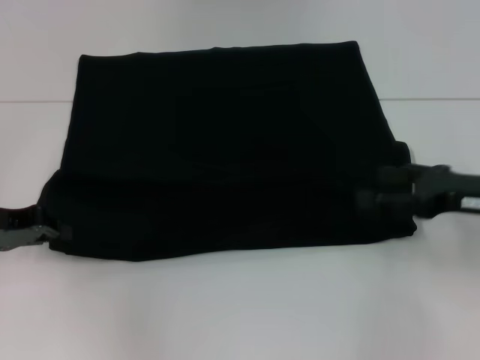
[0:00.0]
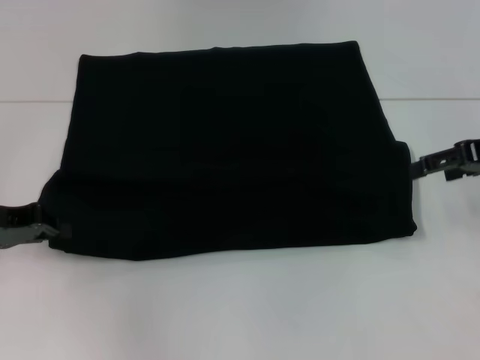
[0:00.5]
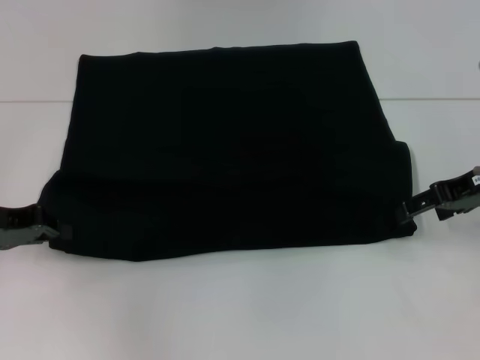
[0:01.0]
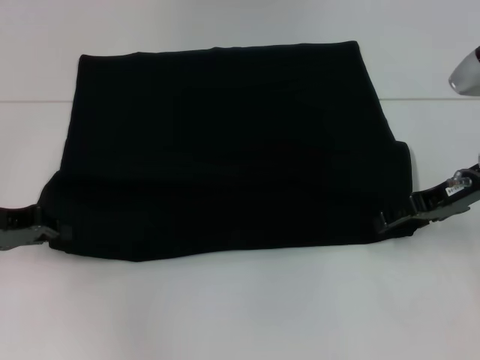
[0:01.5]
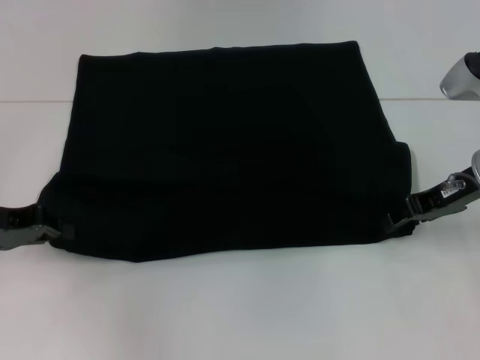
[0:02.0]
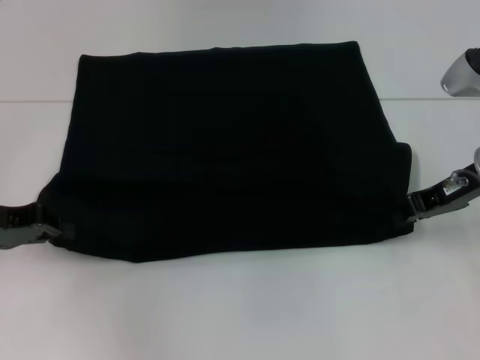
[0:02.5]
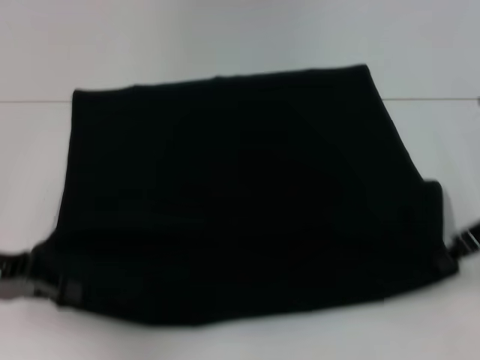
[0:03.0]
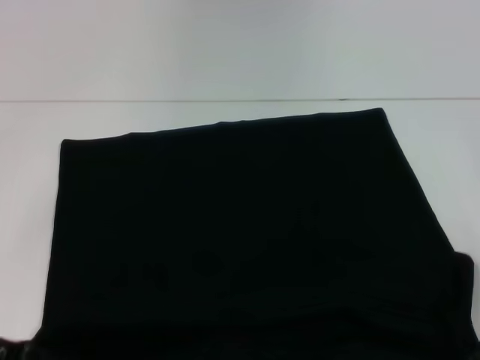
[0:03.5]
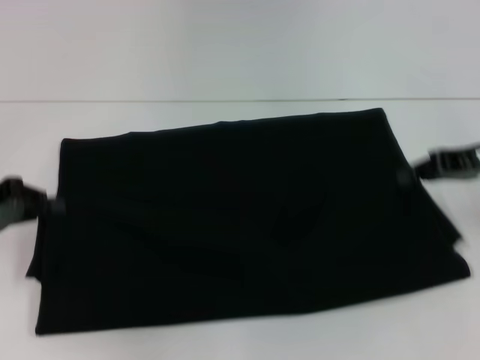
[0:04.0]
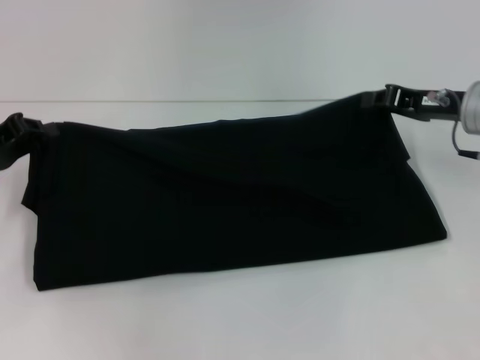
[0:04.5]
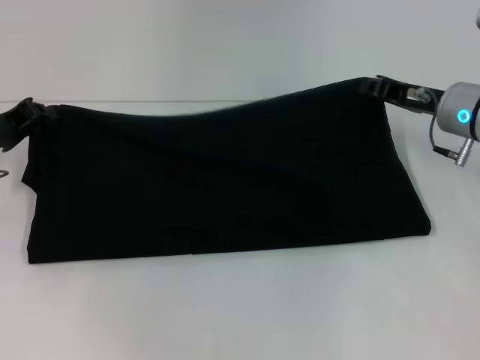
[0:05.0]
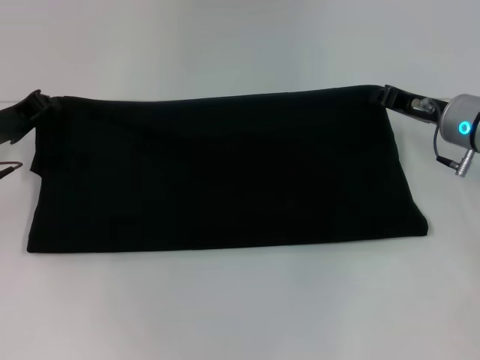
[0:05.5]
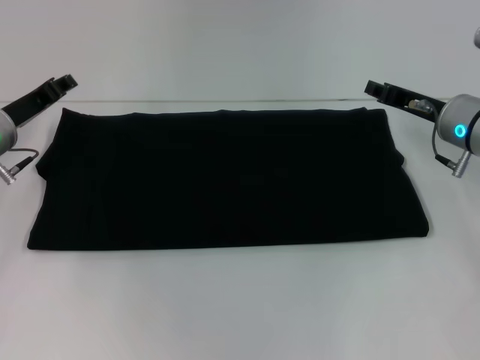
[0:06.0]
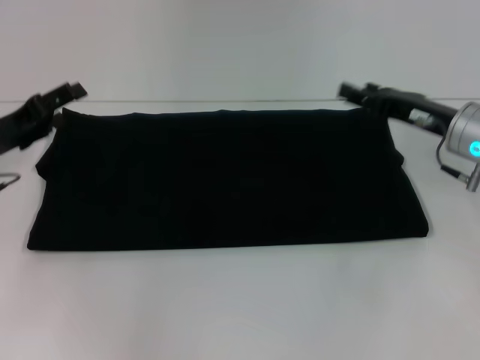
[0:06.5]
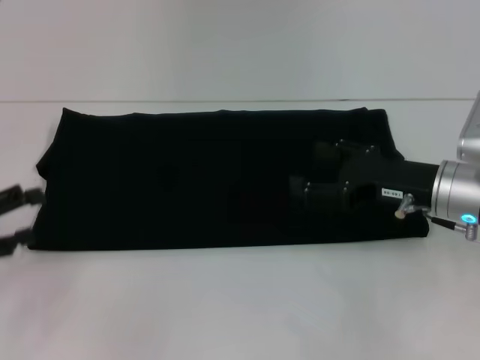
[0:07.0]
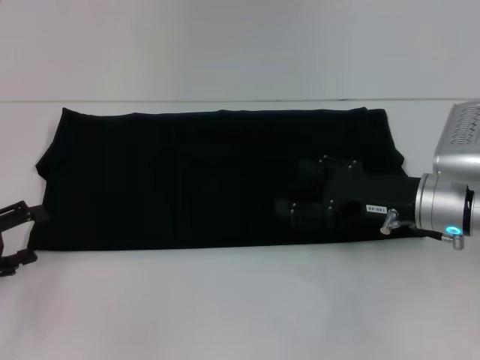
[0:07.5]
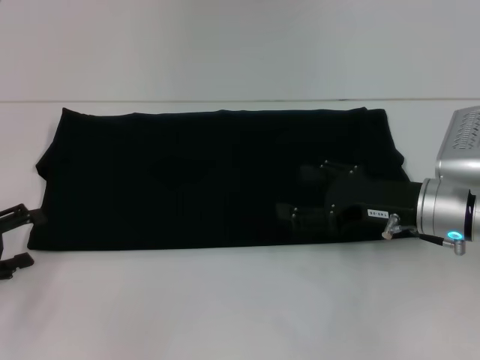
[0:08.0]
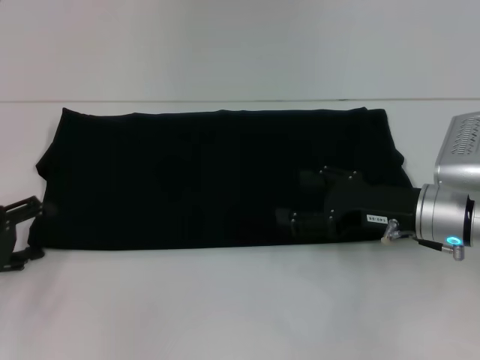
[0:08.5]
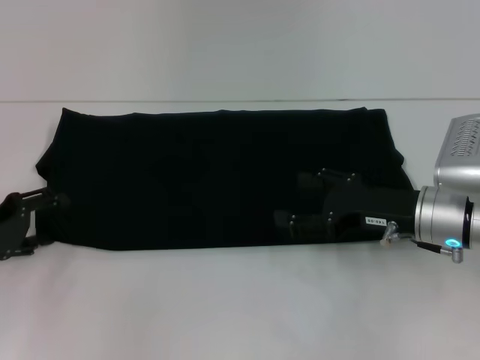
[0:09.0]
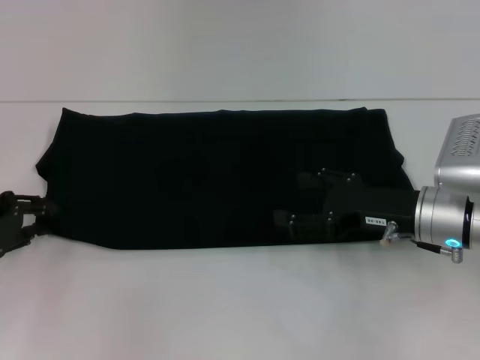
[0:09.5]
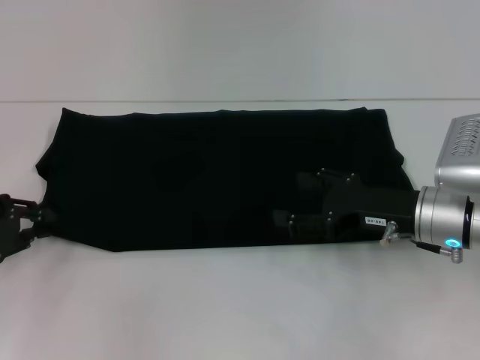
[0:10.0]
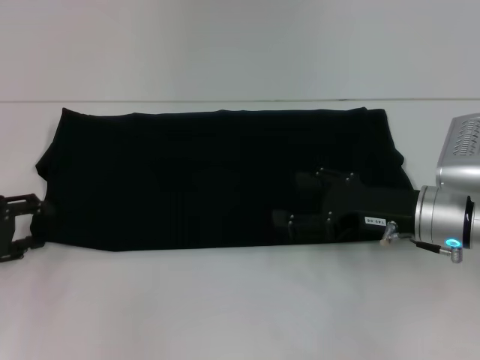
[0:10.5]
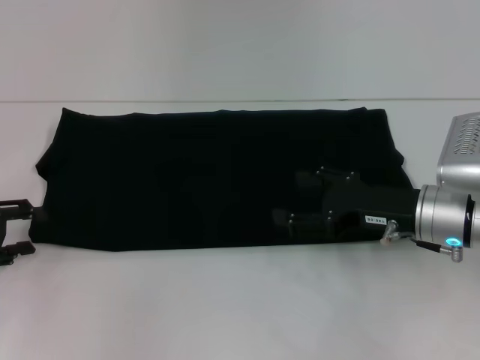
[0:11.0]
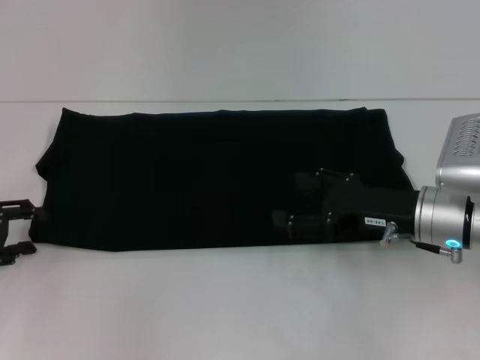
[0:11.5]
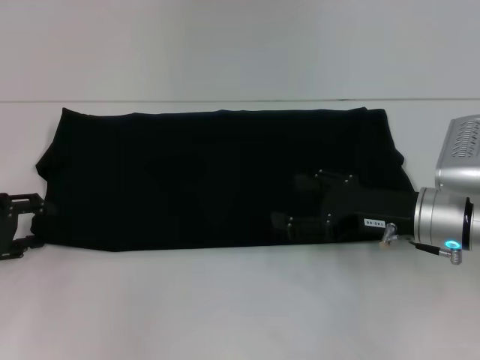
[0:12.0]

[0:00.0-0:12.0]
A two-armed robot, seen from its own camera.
Step, 0:00.0 to 0:03.0: Pull the clothes with your left hand.
Step, 0:00.0 to 0:03.0: Pull the clothes with your right hand.
Step, 0:03.5 to 0:05.5: Fold the clothes with your right hand.
0:00.0 to 0:02.0: The right gripper shifts roughly 5 cm forward, and closes its fingers.
0:02.0 to 0:04.0: The left gripper goes backward and returns, about 10 cm each way. The right gripper goes backward and returns, some 10 cm each way, and closes its fingers.
0:04.0 to 0:06.0: The right gripper travels downward and to the left by some 10 cm; the left gripper travels forward and to the right by approximately 10 cm.
0:06.0 to 0:08.0: The left gripper is displaced backward and to the left by some 15 cm, and opens up; the right gripper is displaced backward by about 10 cm, and opens.
0:08.0 to 0:10.0: The left gripper closes.
0:10.0 to 0:12.0: The left gripper opens.

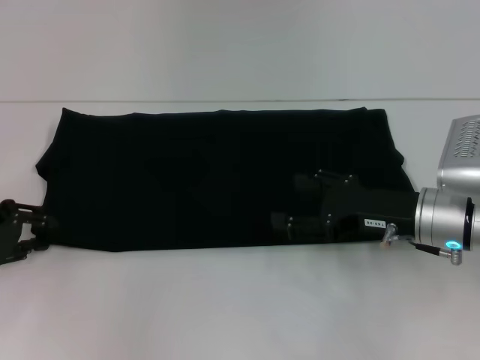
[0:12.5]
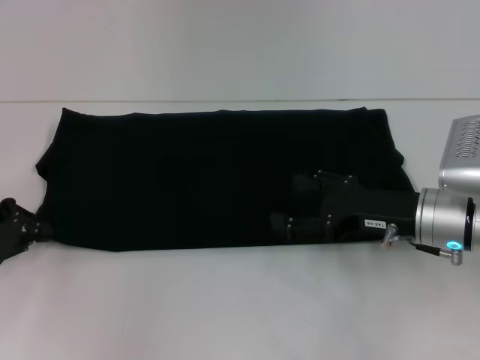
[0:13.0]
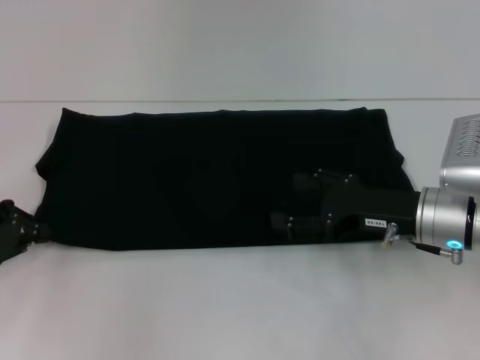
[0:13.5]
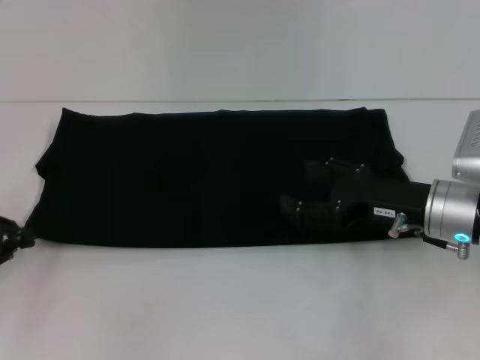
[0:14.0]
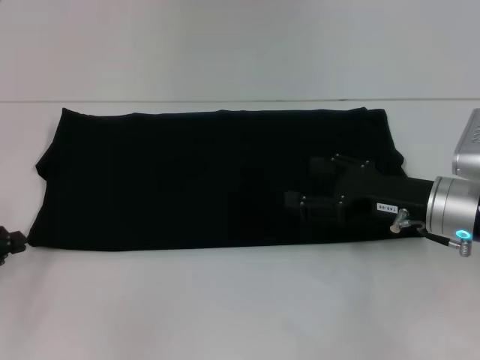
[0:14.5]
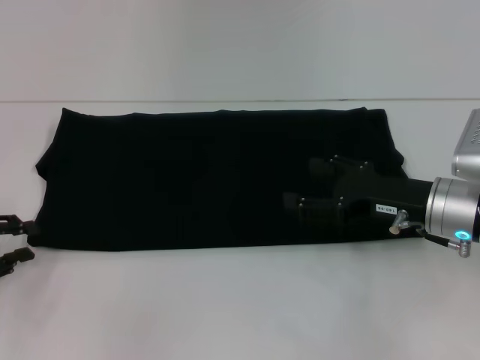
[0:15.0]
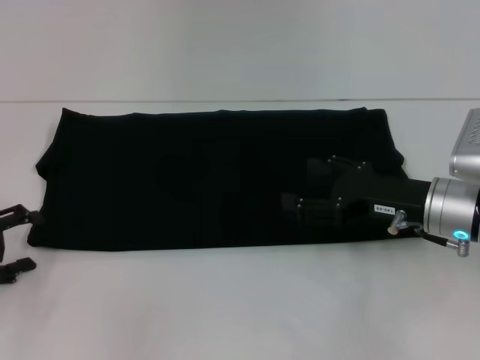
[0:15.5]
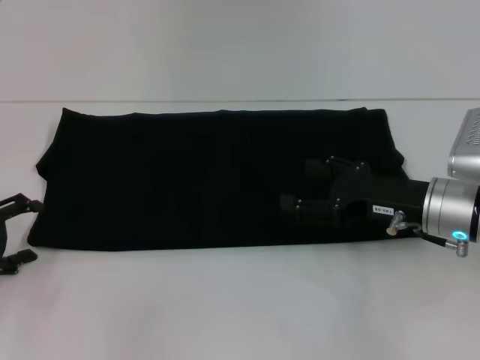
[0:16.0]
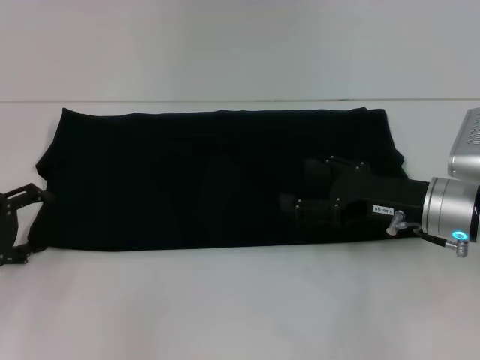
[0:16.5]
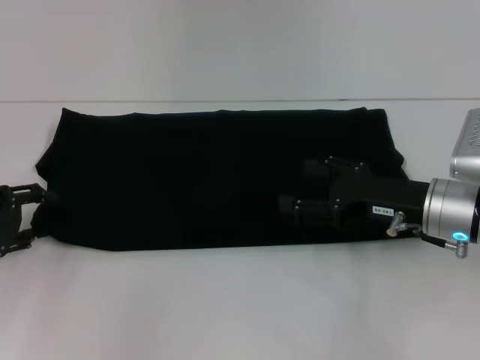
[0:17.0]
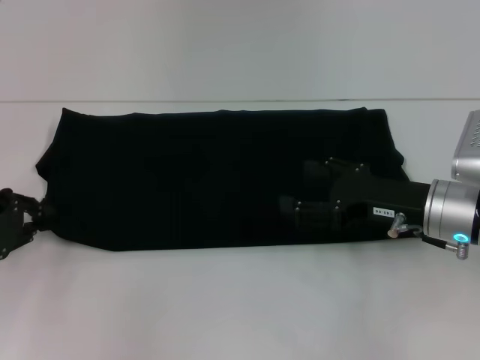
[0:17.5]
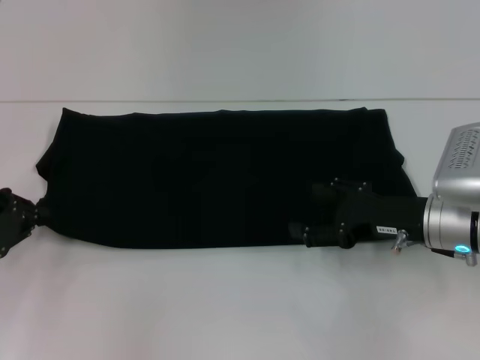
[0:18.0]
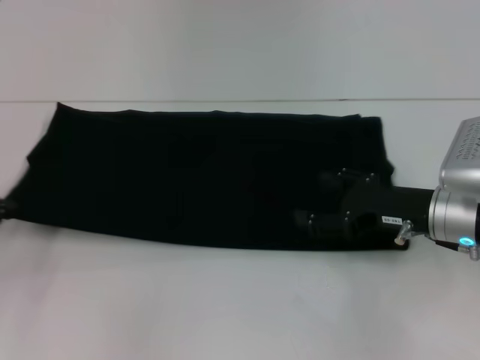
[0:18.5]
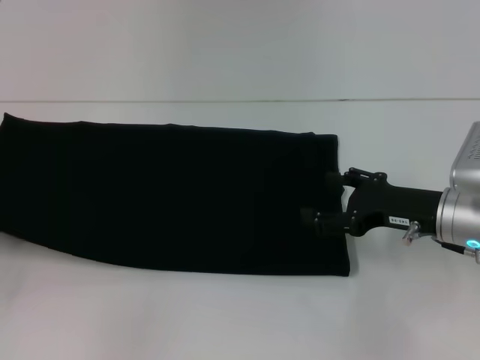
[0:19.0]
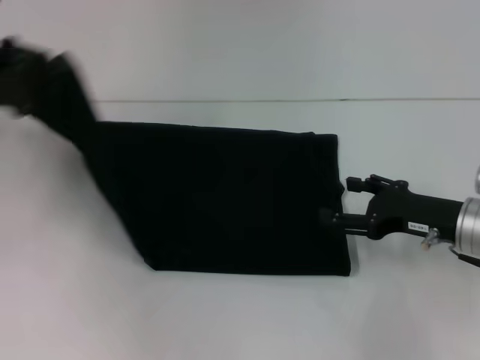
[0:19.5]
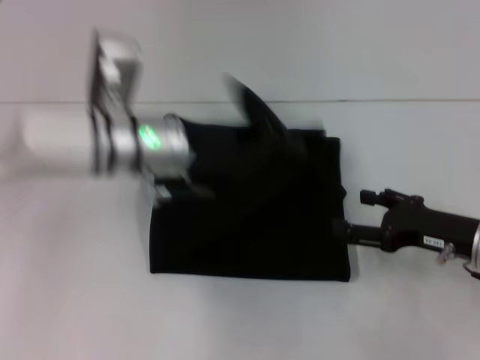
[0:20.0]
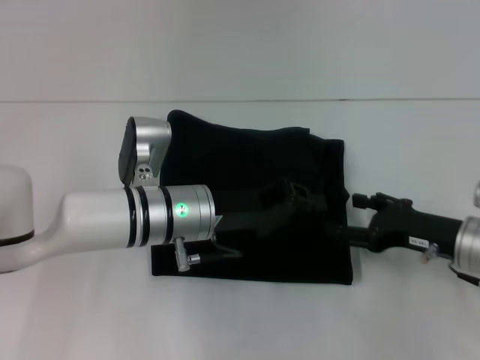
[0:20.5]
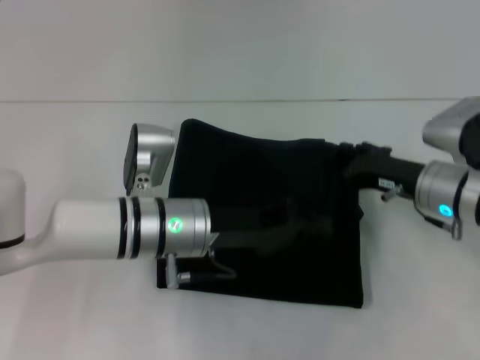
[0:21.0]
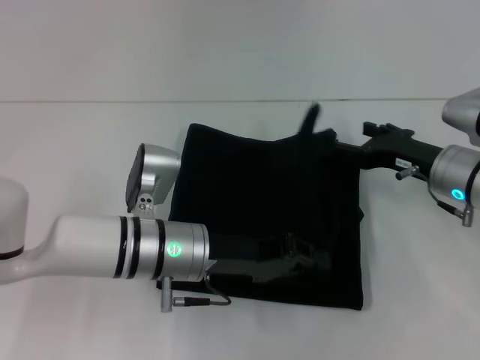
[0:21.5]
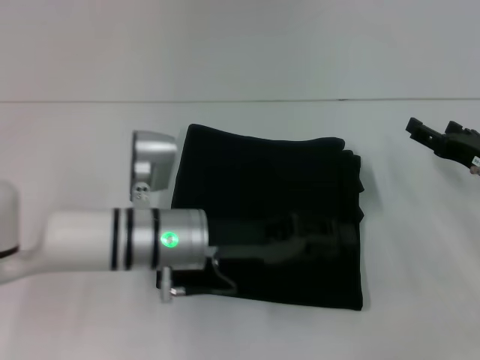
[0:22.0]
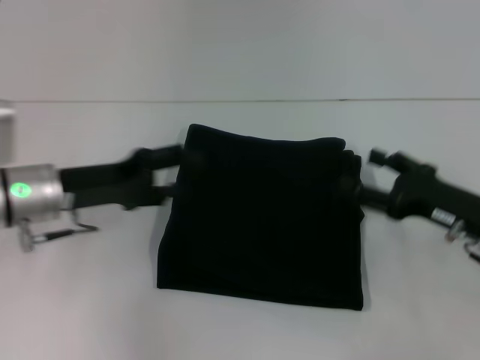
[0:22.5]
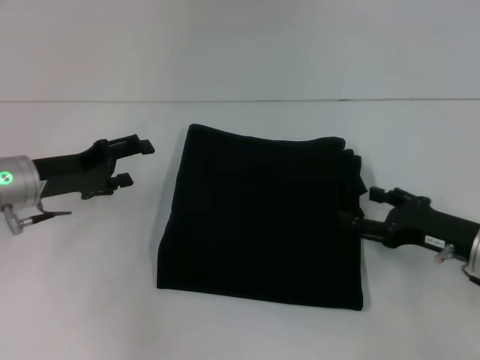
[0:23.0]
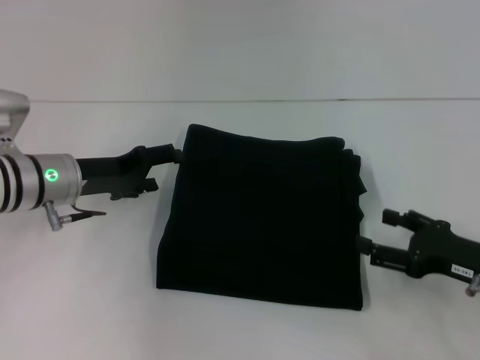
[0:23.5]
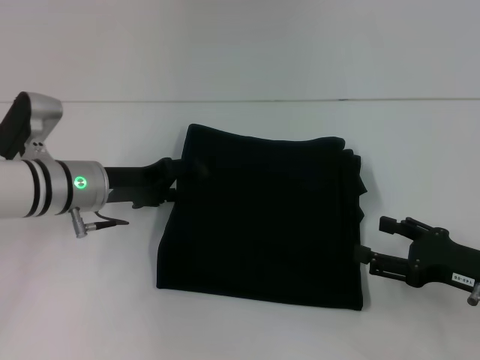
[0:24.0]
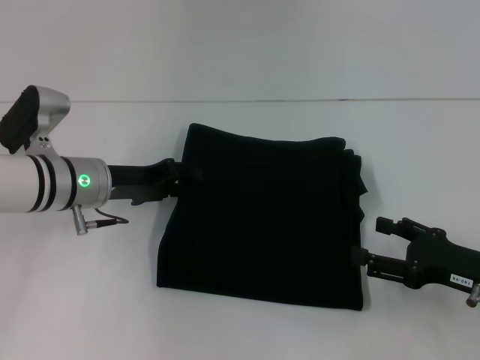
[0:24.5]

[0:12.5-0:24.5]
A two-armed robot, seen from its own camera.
Step, 0:12.5 to 0:21.5: Fold the clothes with your left hand.
0:12.5 to 0:14.5: The left gripper moves roughly 5 cm, and closes up.
0:14.5 to 0:16.5: The left gripper opens its fingers.
0:16.5 to 0:18.5: The left gripper closes its fingers.
0:18.5 to 0:20.5: The left gripper goes some 30 cm to the right.
0:20.5 to 0:22.5: The left gripper goes about 15 cm to the left, and opens its fingers.
0:22.5 to 0:24.5: The right gripper shifts by roughly 5 cm. Meanwhile the left gripper shifts by about 5 cm.

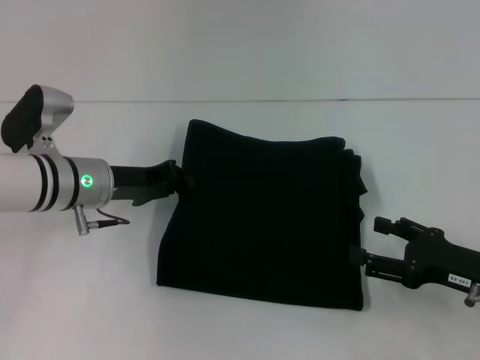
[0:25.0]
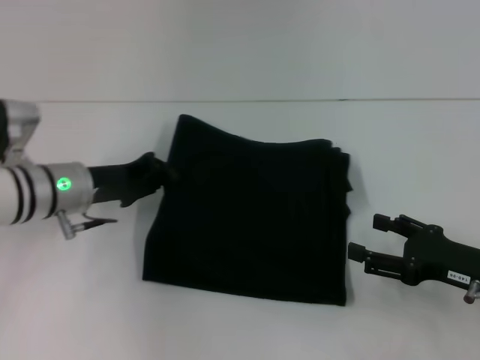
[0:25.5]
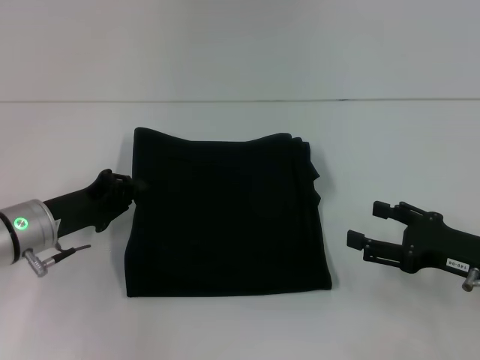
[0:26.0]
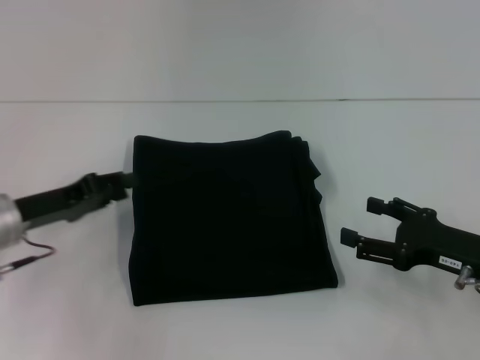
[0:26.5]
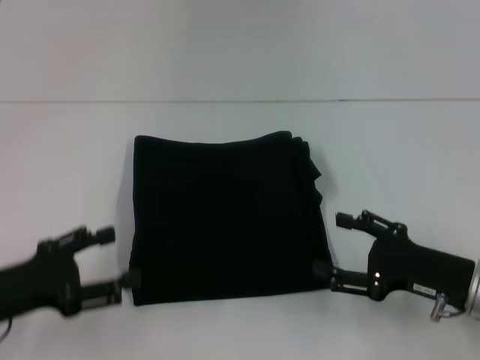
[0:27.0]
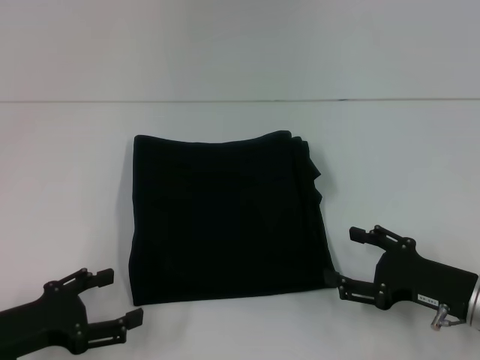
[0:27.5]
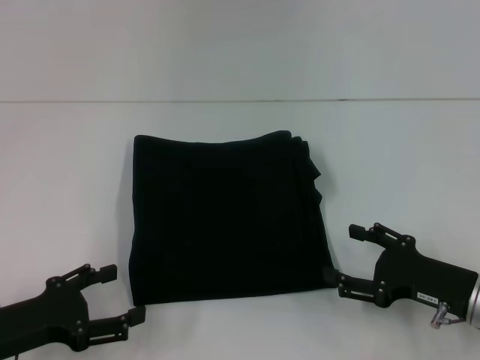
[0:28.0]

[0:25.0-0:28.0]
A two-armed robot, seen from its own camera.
0:25.0 to 0:26.5: The left gripper travels to the left and backward by about 10 cm.
0:26.5 to 0:28.0: The left gripper goes approximately 10 cm backward, and opens.
